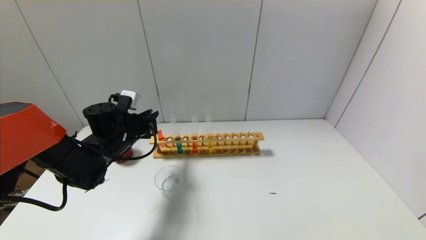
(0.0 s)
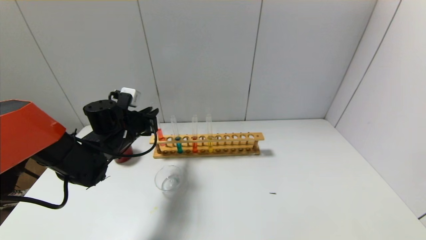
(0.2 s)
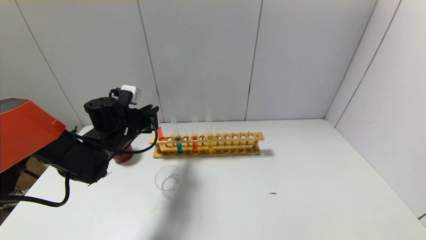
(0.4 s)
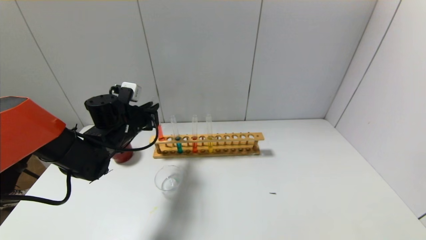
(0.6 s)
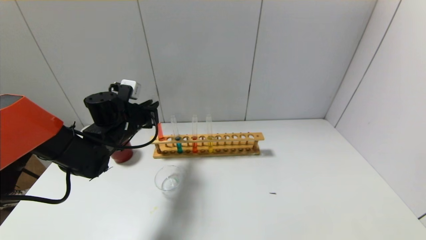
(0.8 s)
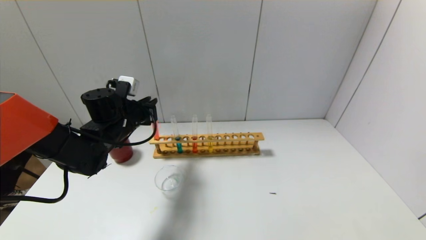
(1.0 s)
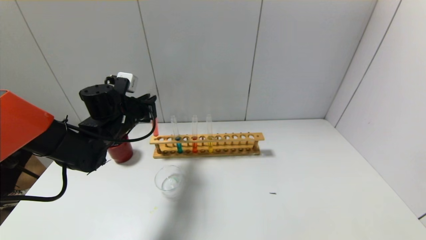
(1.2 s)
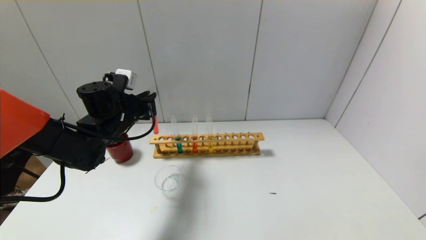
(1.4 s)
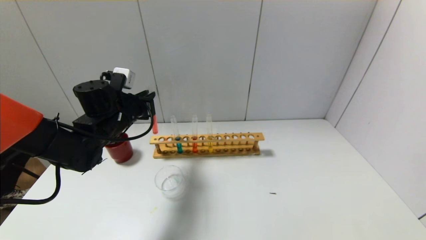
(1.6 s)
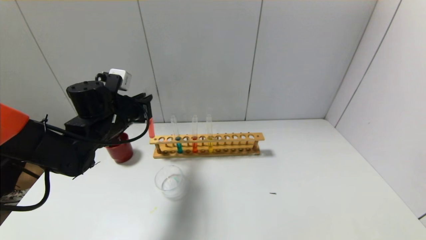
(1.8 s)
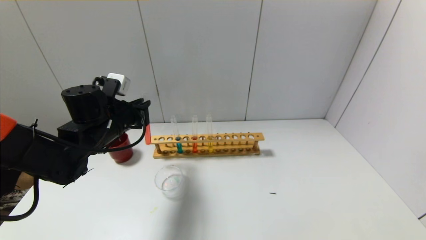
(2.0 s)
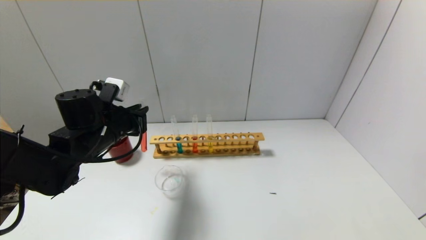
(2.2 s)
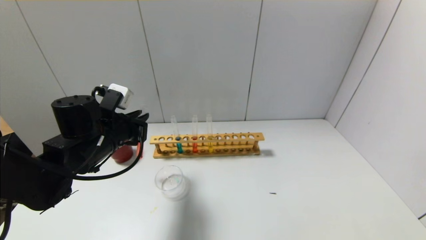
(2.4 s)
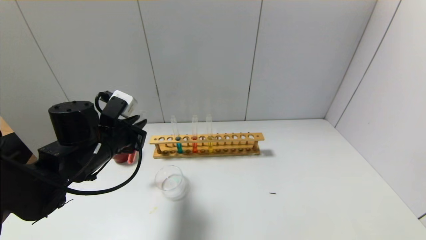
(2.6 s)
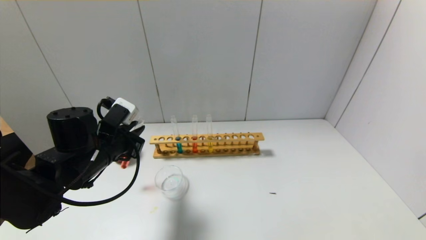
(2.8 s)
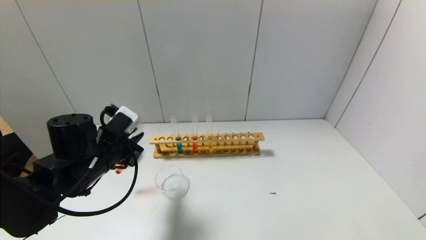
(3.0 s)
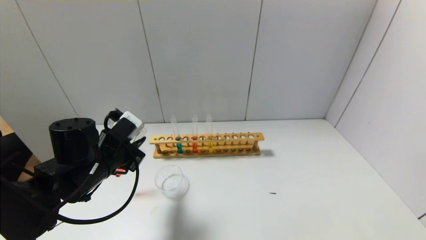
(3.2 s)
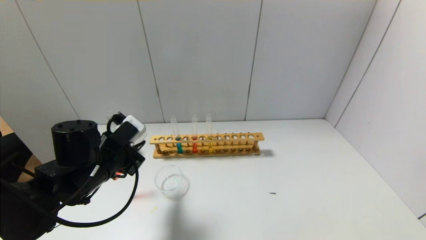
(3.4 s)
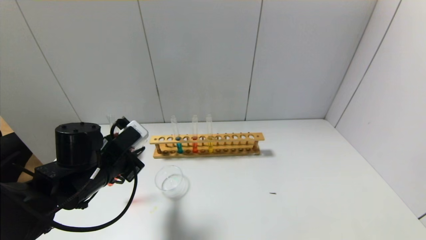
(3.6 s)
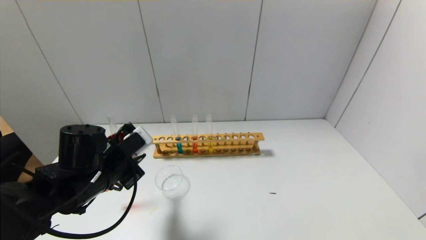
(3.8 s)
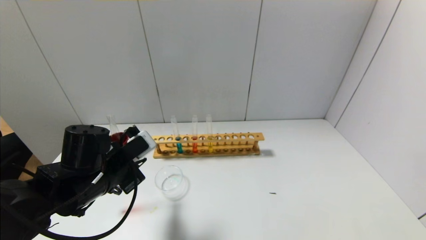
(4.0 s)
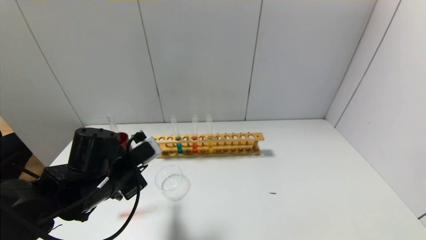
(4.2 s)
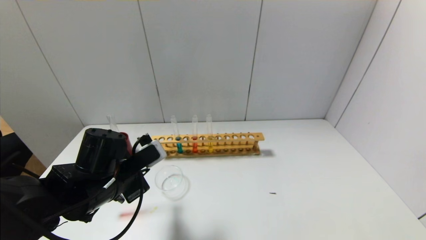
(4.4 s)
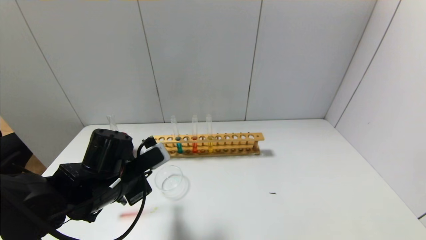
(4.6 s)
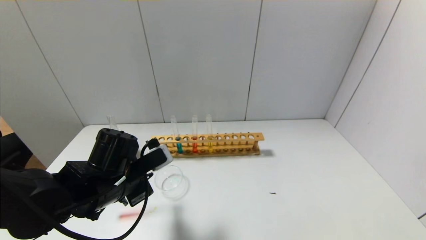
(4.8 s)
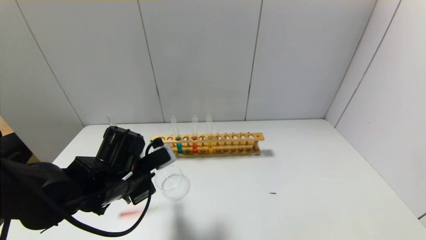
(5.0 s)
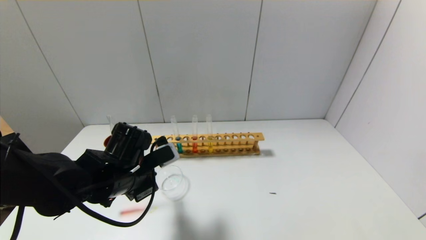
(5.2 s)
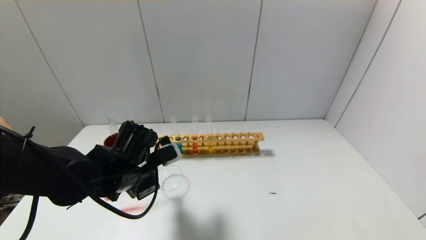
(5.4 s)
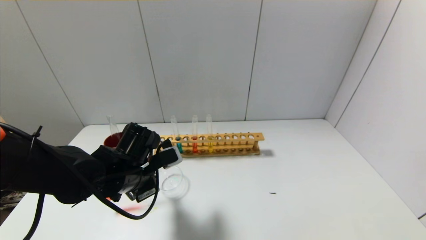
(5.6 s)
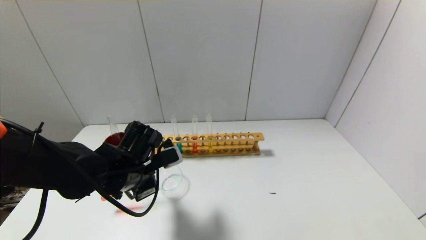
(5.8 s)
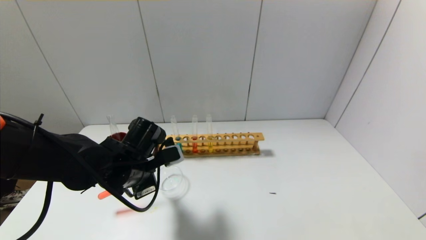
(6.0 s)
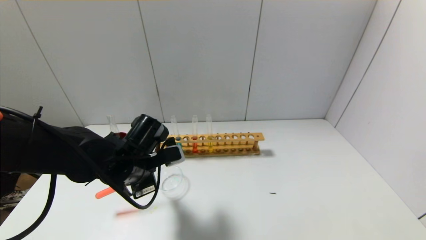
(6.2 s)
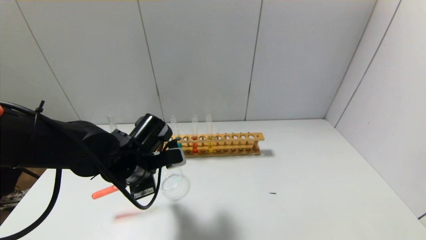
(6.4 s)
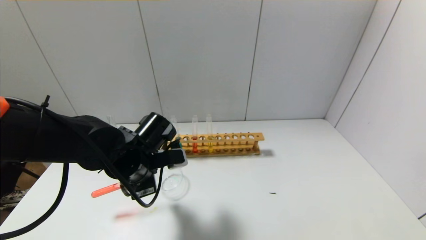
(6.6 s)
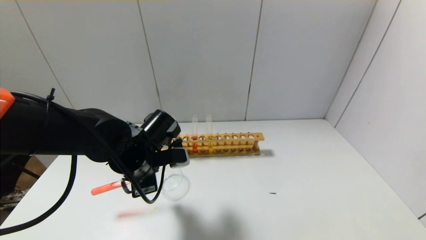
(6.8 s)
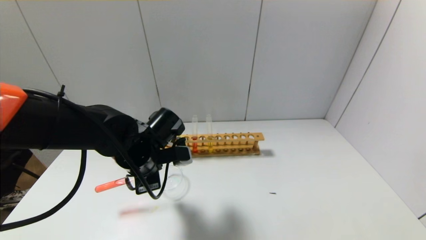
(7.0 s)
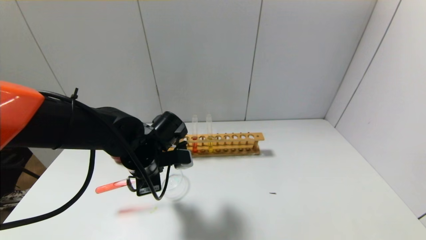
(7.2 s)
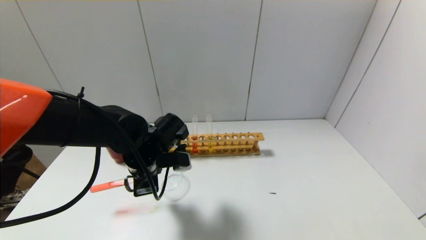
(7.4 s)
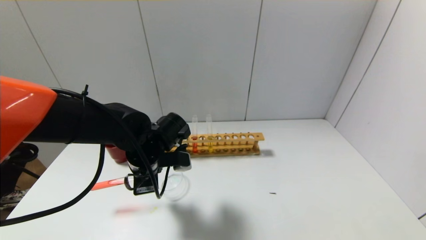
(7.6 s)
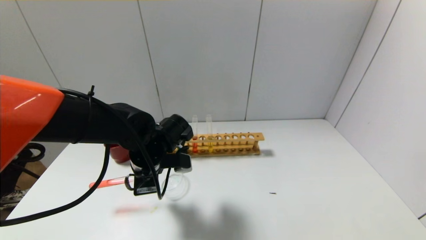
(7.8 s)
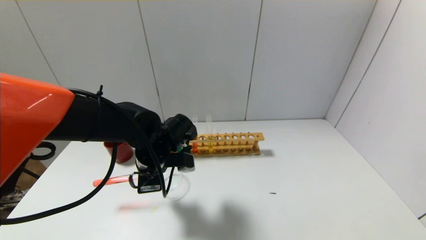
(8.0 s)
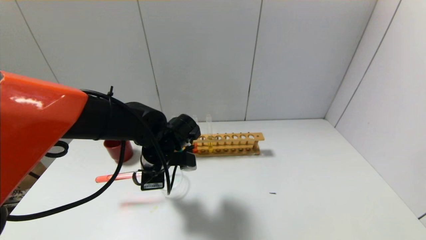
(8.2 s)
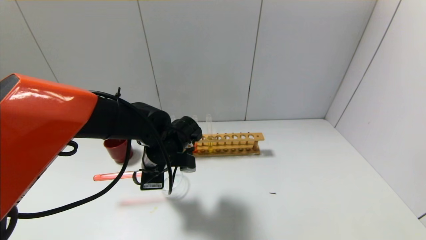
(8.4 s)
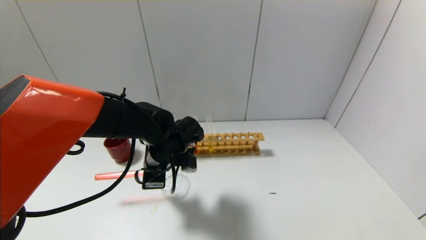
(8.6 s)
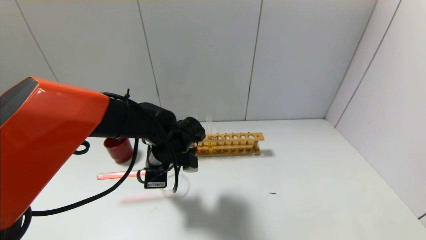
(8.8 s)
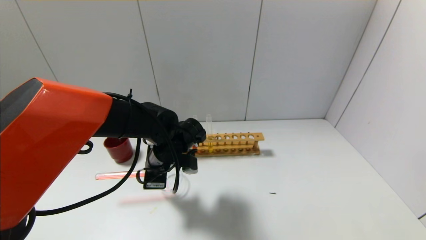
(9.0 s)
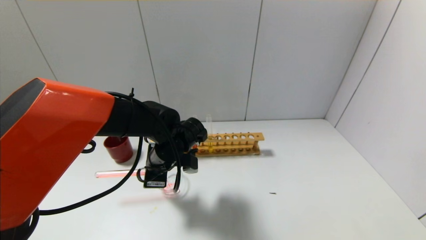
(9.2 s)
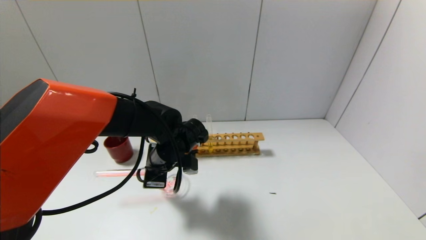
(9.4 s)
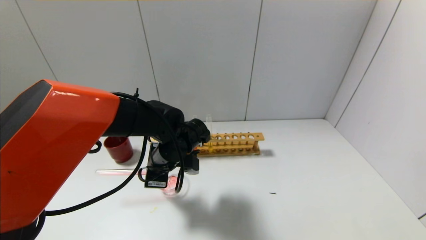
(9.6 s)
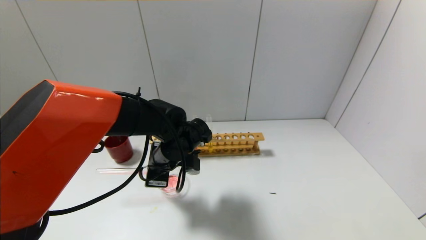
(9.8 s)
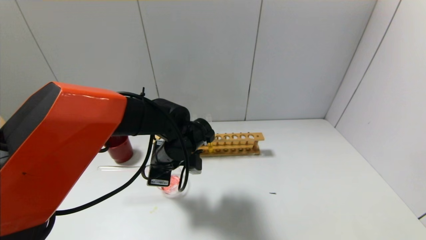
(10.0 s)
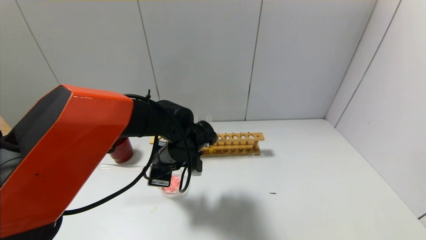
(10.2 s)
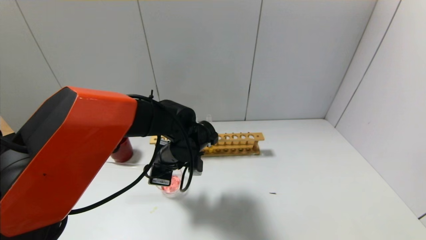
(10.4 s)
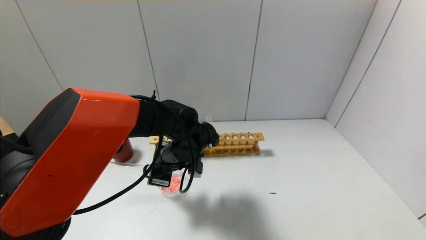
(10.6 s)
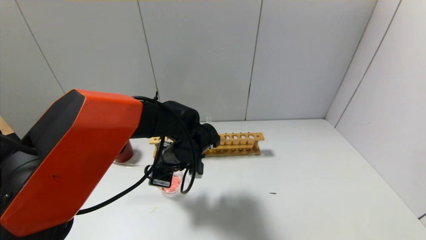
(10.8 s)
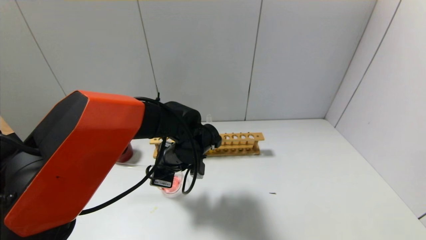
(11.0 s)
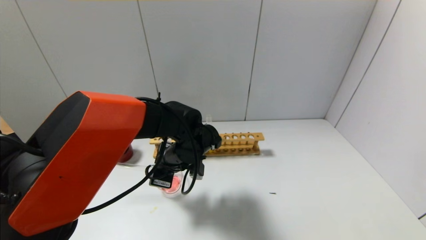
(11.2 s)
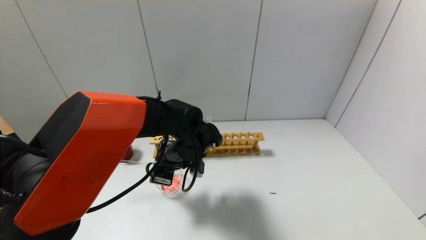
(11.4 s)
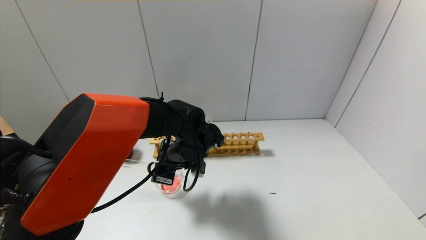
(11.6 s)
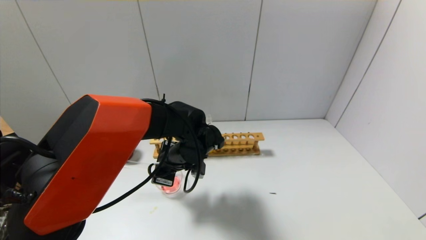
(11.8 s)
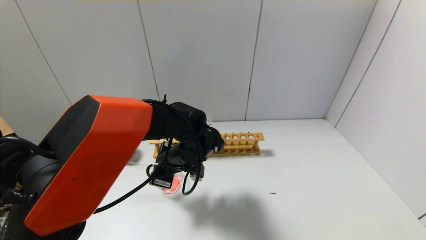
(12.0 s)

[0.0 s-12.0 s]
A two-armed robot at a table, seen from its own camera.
0.0 to 1.6 s: The left gripper travels upward by some 5 cm.
1.6 to 3.0 s: The left gripper goes about 10 cm backward.
7.6 to 9.0 s: The grippers stay close to where they were, moving slightly.
9.0 to 12.0 s: The grippers move only a little.

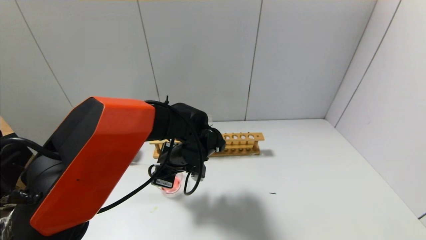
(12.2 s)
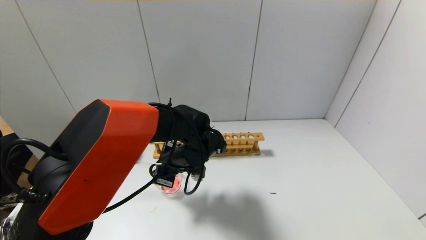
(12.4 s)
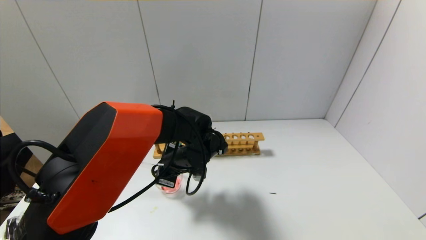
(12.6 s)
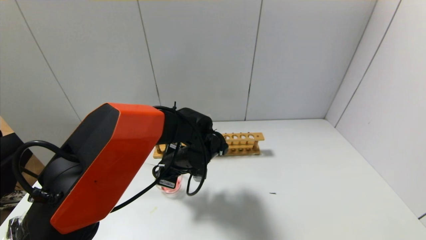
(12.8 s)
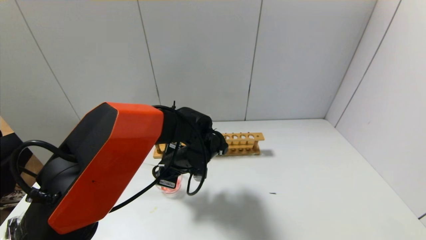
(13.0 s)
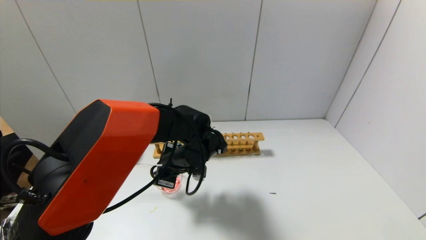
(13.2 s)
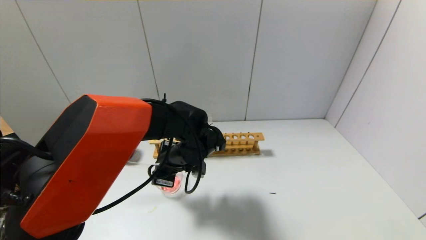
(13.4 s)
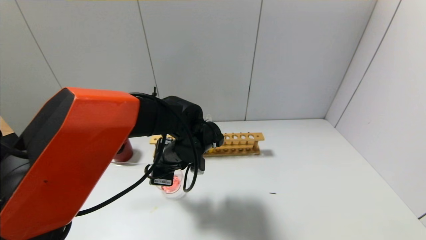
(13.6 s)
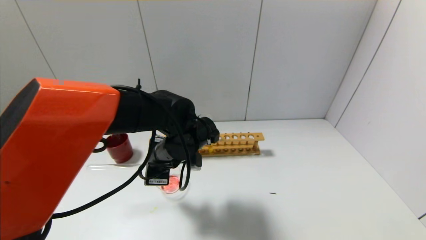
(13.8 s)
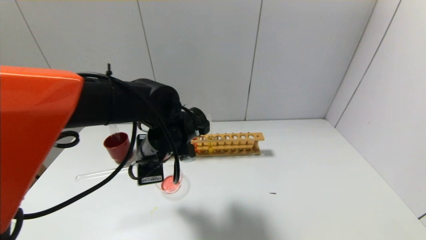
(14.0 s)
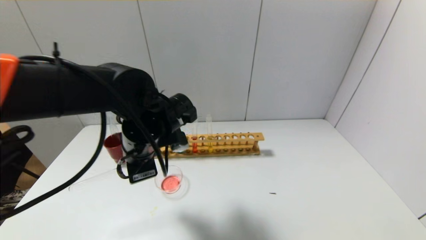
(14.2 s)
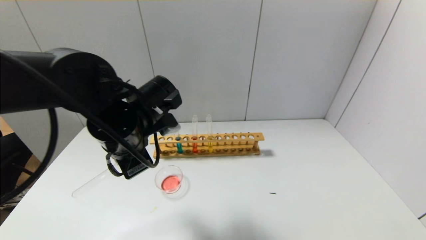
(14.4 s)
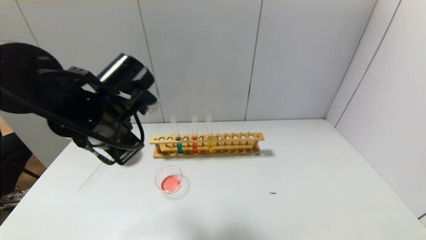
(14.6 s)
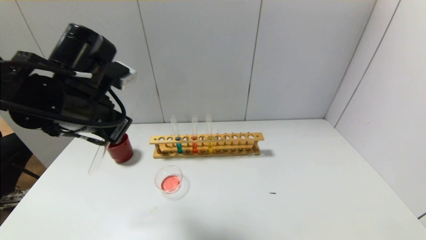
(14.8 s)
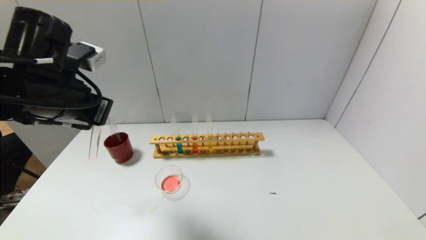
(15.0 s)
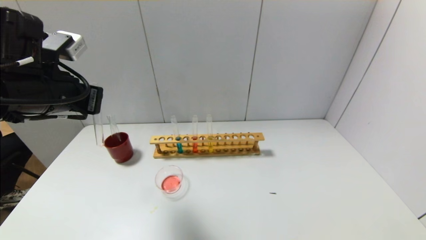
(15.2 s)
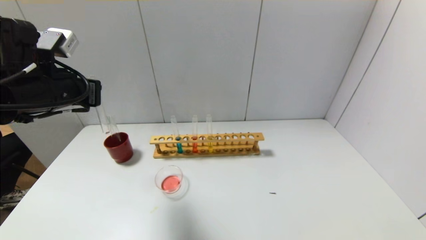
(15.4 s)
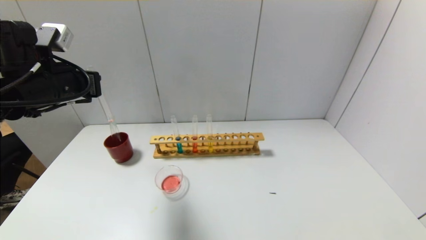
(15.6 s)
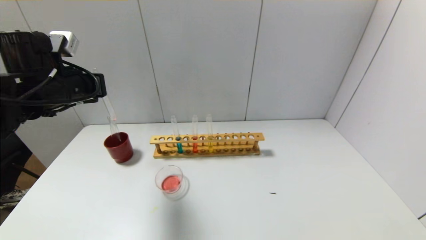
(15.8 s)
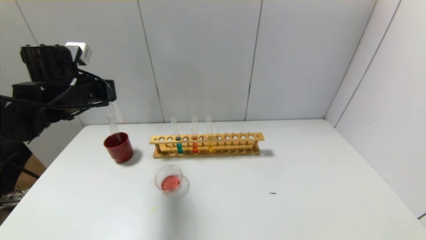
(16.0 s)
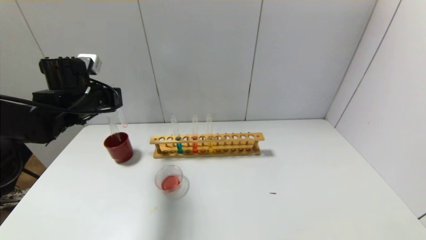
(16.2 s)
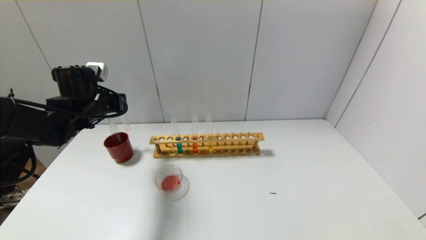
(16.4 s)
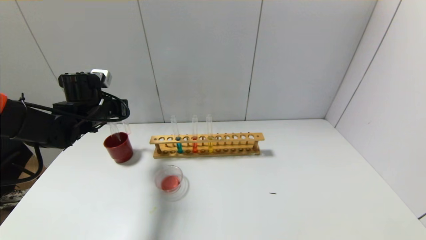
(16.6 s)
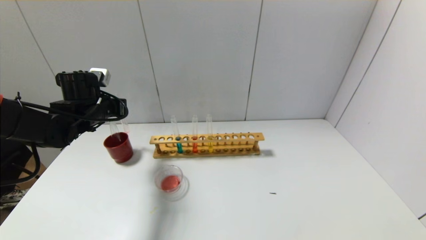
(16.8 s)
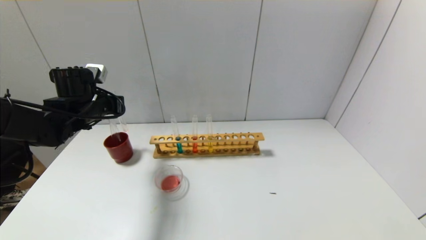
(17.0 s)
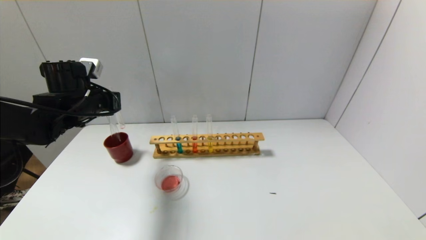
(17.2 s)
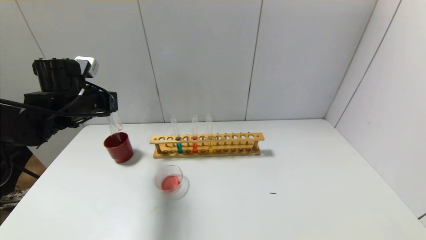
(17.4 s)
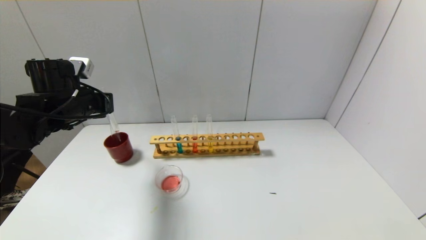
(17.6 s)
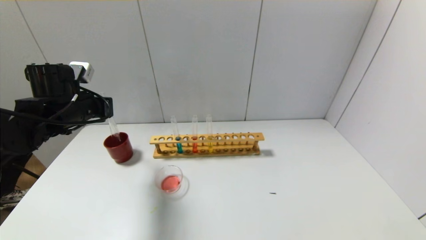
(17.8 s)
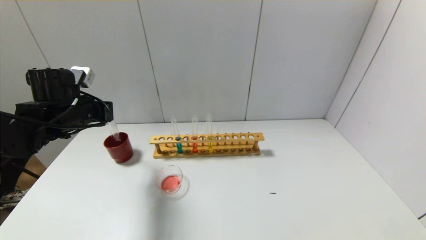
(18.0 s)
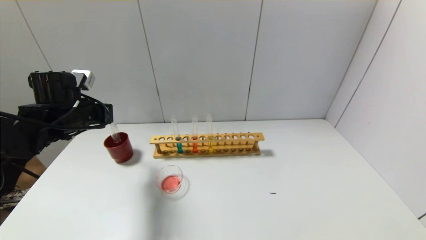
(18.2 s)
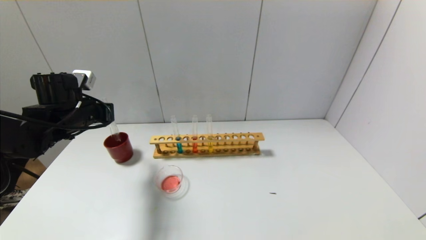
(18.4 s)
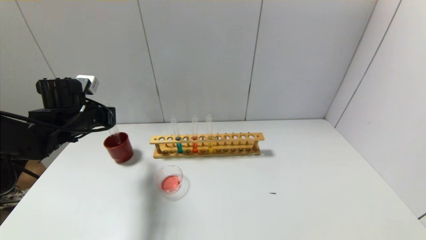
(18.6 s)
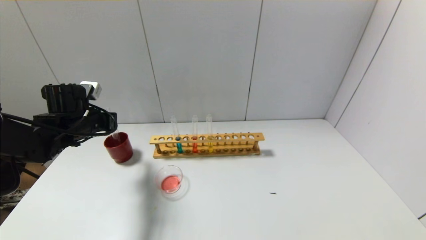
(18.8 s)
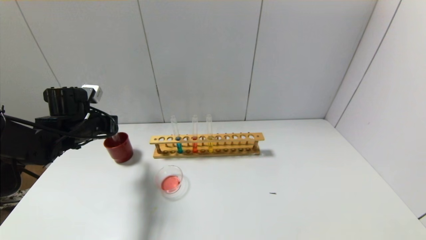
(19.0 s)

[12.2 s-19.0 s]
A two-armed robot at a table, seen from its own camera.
12.2 to 13.6 s: The grippers make only small movements.
13.6 to 15.0 s: The left gripper goes roughly 20 cm to the left and upward.
15.0 to 16.2 s: The left gripper moves forward, downward and to the left, some 15 cm.
16.2 to 17.6 s: The grippers stay close to where they were, moving slightly.
17.6 to 19.0 s: The left gripper goes approximately 5 cm downward.
